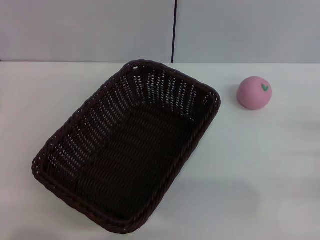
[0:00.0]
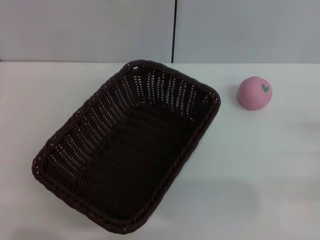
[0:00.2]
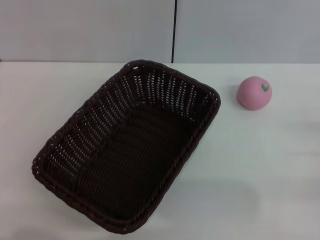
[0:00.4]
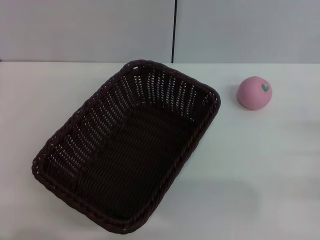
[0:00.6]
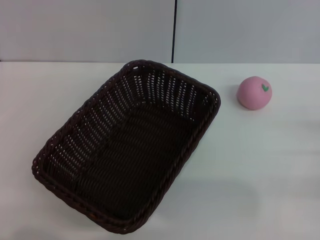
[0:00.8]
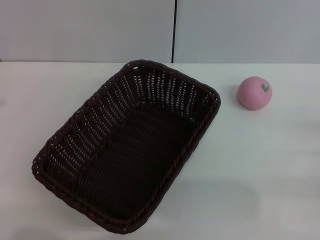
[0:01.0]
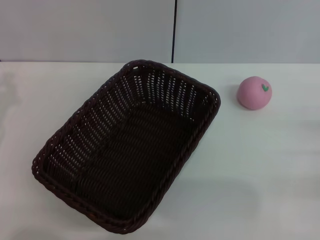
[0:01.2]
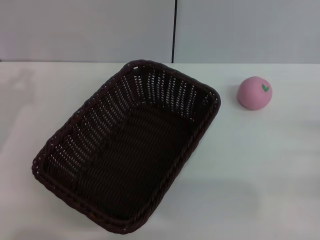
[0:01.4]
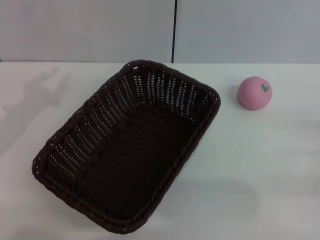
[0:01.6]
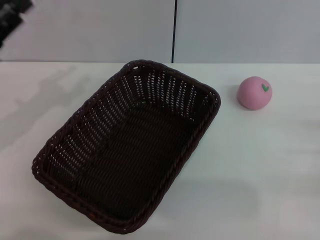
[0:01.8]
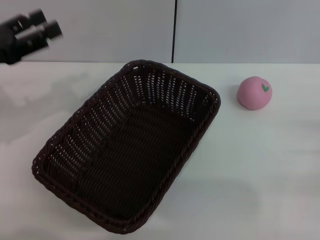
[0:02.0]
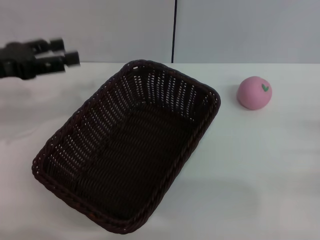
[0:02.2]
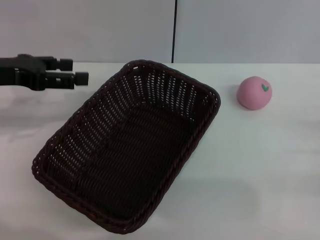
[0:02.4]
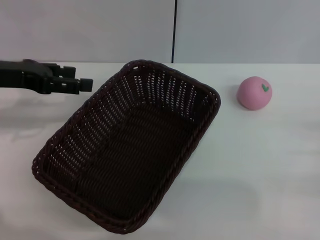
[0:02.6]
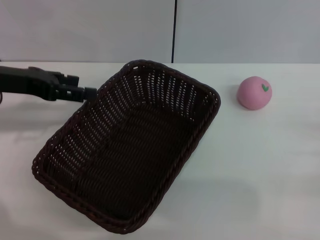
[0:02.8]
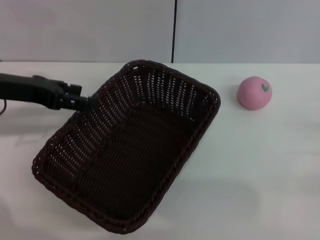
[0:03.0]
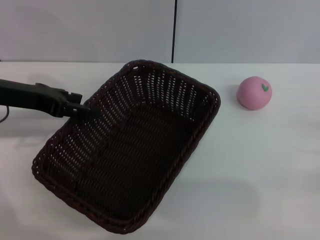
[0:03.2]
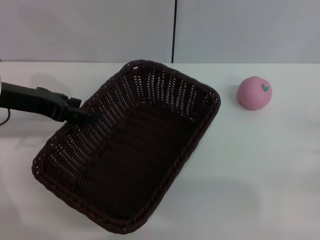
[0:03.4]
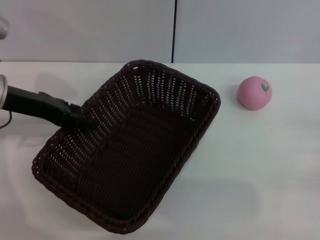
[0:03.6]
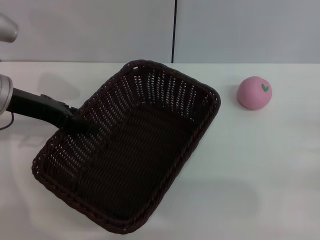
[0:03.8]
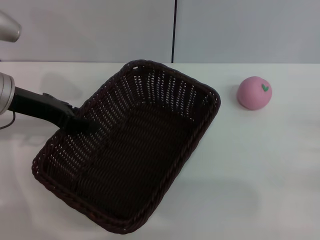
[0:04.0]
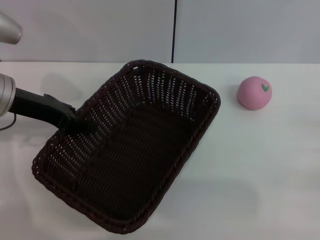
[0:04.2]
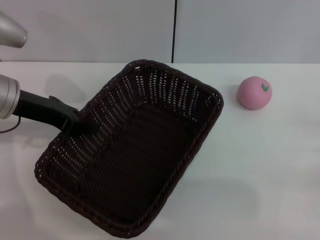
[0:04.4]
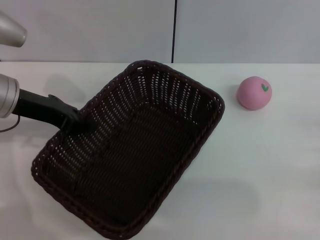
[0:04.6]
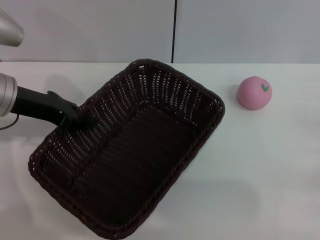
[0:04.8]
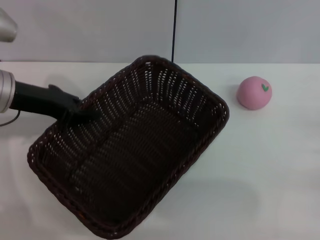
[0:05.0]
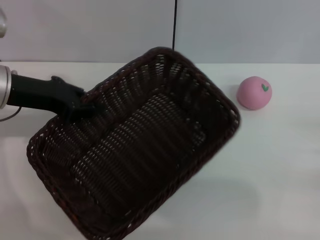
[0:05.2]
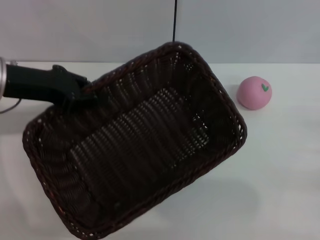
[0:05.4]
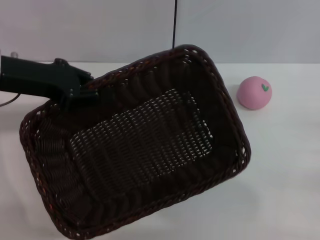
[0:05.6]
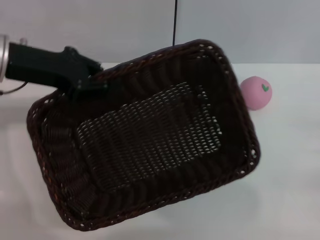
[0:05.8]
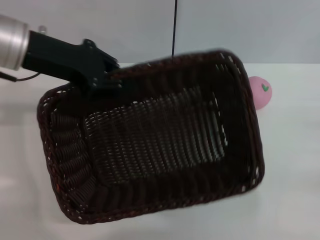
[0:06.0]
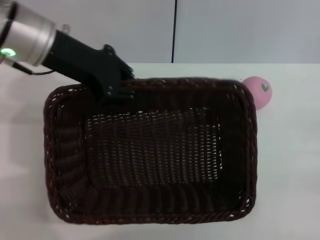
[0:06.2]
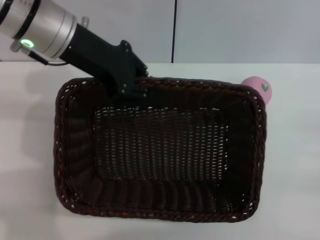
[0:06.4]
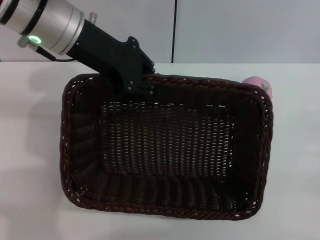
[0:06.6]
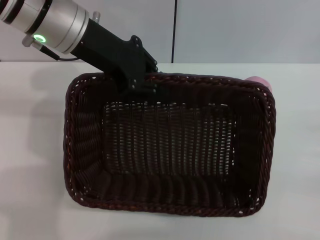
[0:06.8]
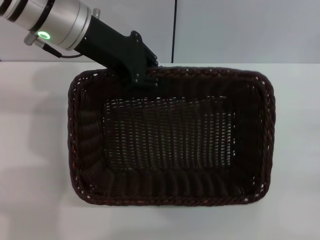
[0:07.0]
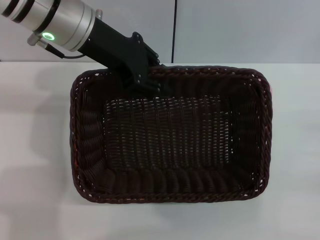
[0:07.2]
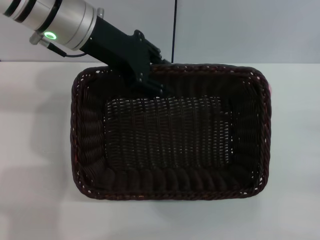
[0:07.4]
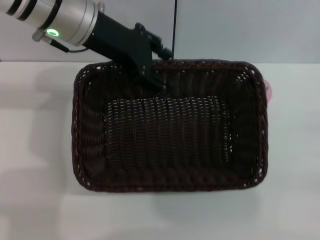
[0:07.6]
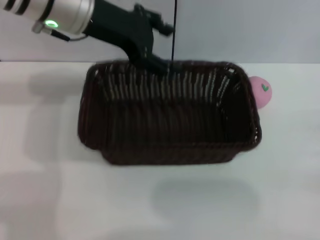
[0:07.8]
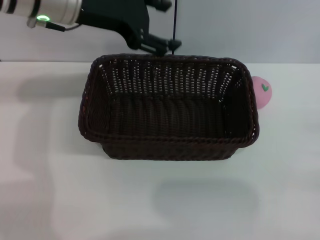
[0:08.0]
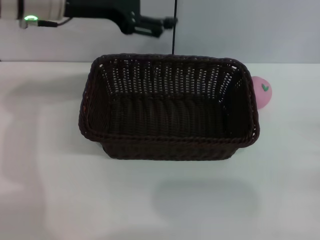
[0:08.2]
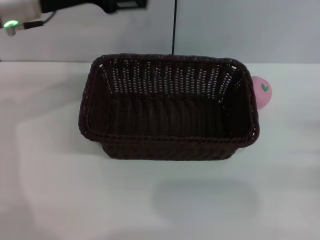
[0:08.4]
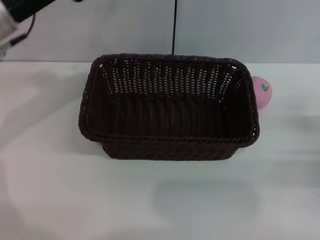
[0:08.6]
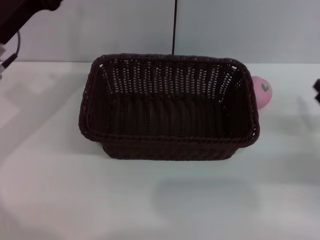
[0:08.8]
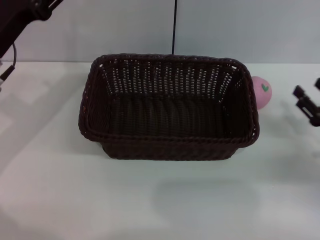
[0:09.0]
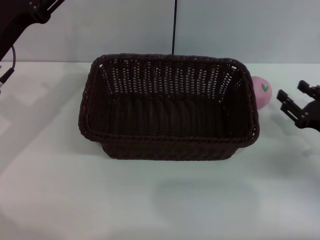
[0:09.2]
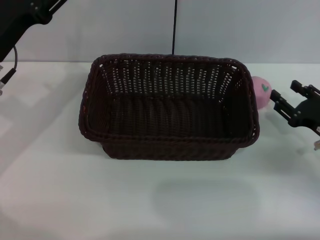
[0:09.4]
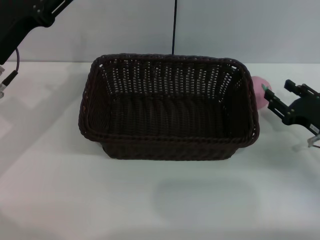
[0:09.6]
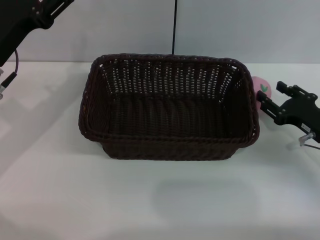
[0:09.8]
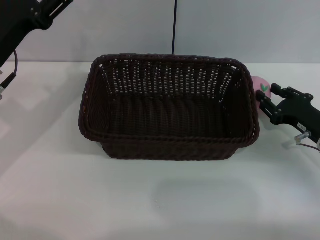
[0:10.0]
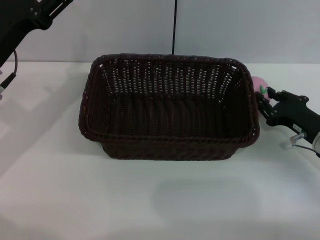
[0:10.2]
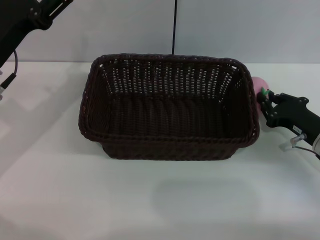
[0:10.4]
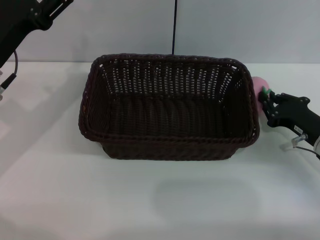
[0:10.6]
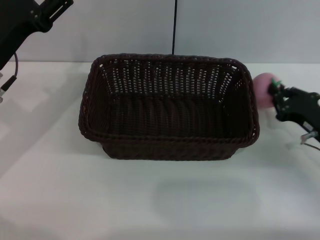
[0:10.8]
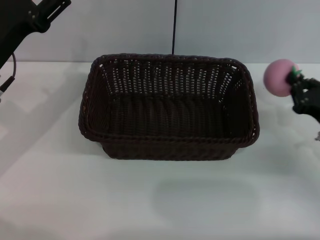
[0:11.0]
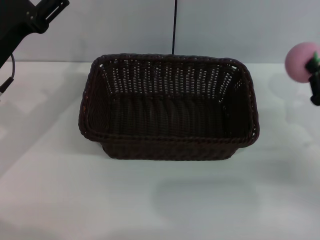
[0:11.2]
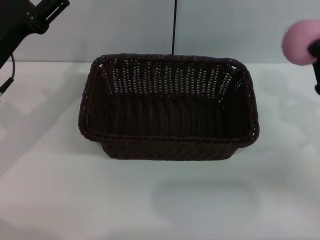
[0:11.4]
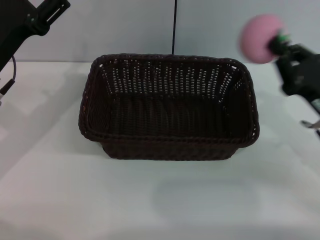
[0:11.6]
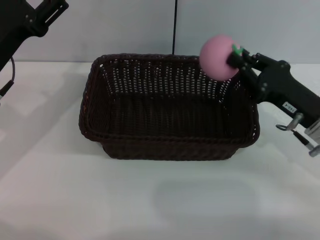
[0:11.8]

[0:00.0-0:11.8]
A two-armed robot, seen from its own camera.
Step, 0.0 to 5.4 s: Pick up the dark basket with the left gripper.
Step, 8.2 to 11.4 s: Pick up the peach with the left gripper.
1.4 to 3.0 s: The left gripper moves forward, upward and to the right, roughly 10 cm, and opens.
3.0 to 4.4 s: There are only small adjustments of the grippers.
4.4 to 6.0 s: The left gripper is displaced upward by roughly 5 cm, and closes.
6.0 to 7.4 s: The left gripper heads to the right, covering about 10 cm.
7.4 to 8.8 s: The left gripper shifts about 15 cm to the left and downward, and opens up.
8.8 to 10.4 s: The right gripper shifts about 5 cm to the left, and closes up.
10.4 to 11.8 s: The right gripper shifts approximately 5 cm upward.

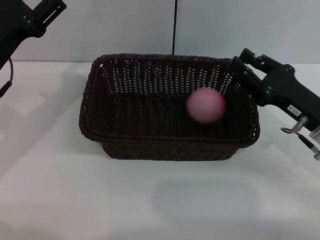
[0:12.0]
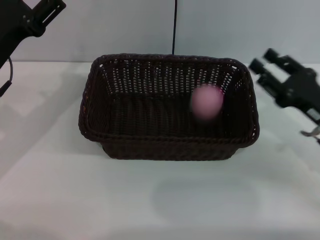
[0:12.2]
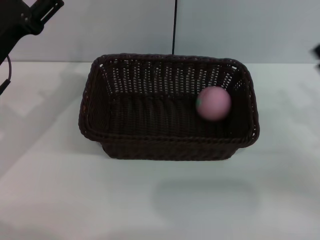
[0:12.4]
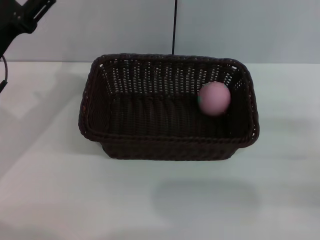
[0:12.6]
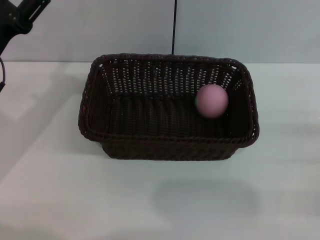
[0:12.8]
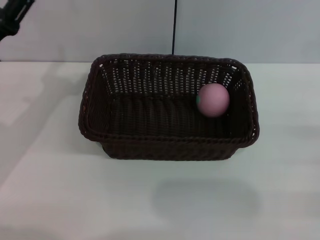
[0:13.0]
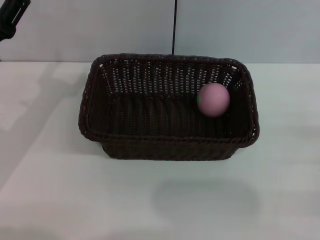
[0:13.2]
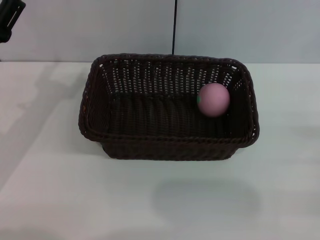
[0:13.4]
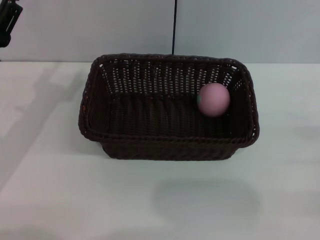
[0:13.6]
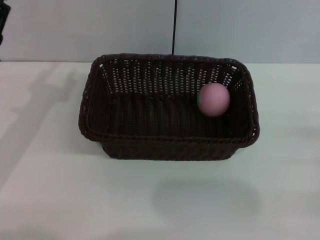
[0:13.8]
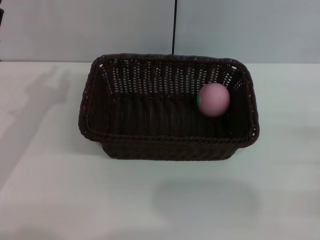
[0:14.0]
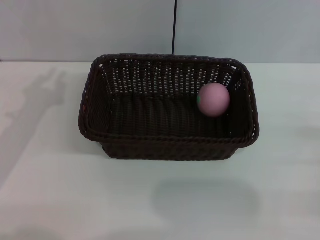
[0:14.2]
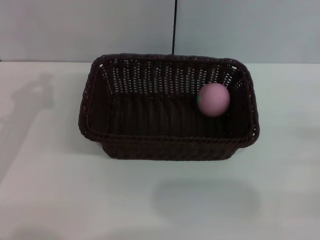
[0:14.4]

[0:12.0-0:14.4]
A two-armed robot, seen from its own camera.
12.0 to 13.2 s: The right gripper travels to the right and backward by about 15 cm, and opens.
13.2 to 14.4 s: The left gripper closes.

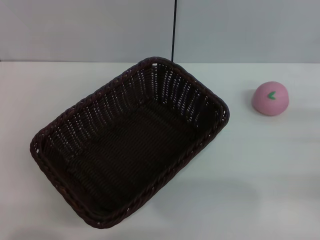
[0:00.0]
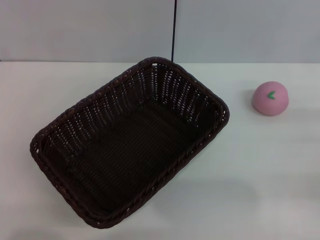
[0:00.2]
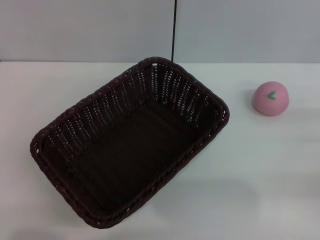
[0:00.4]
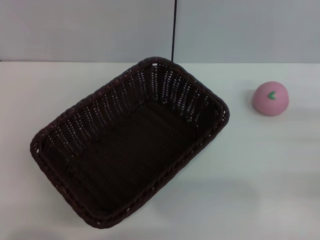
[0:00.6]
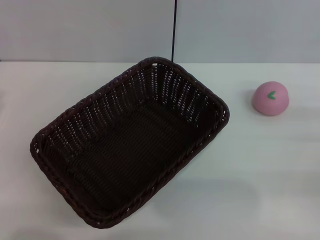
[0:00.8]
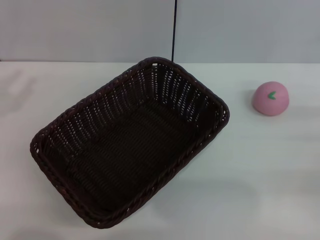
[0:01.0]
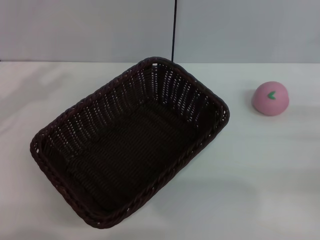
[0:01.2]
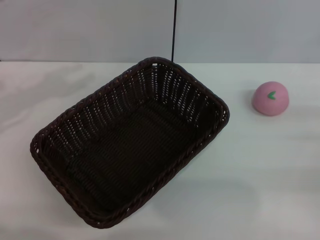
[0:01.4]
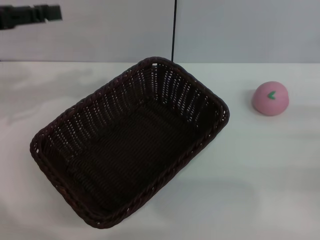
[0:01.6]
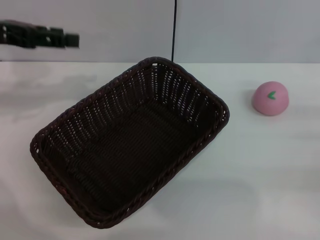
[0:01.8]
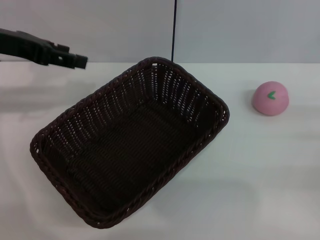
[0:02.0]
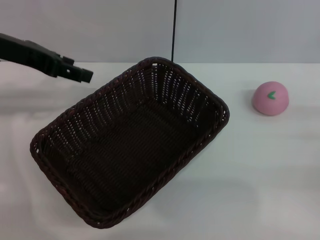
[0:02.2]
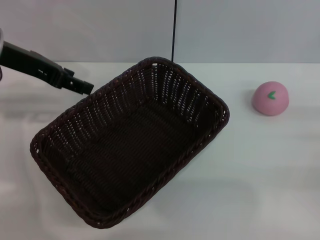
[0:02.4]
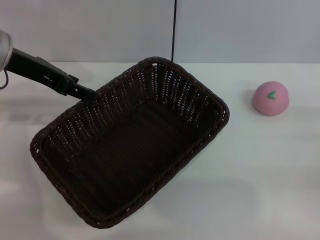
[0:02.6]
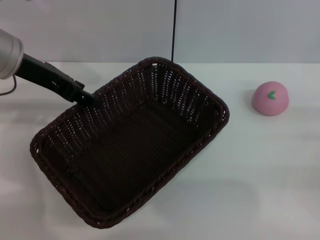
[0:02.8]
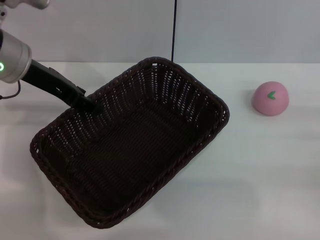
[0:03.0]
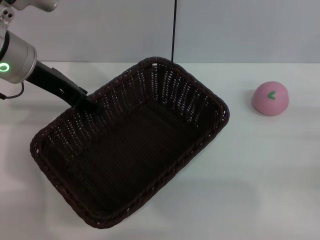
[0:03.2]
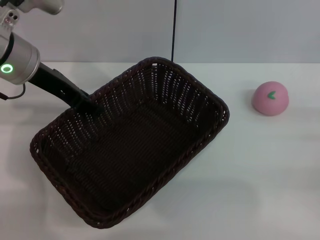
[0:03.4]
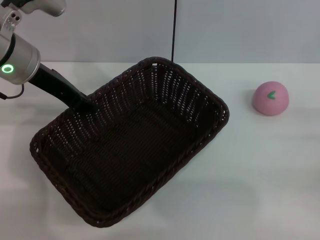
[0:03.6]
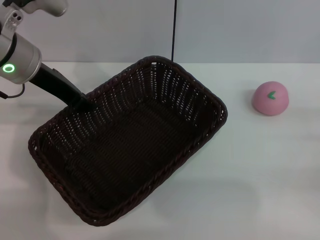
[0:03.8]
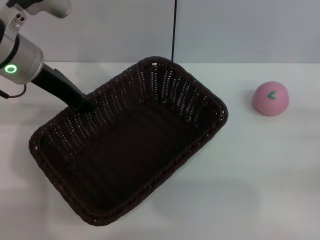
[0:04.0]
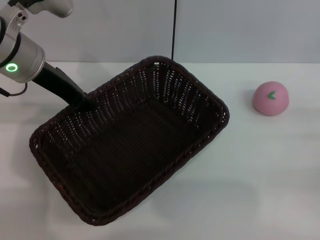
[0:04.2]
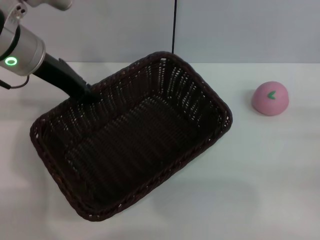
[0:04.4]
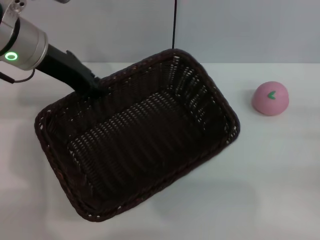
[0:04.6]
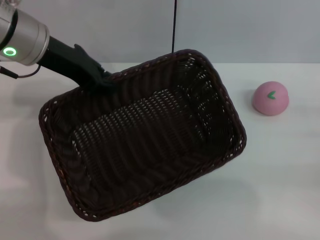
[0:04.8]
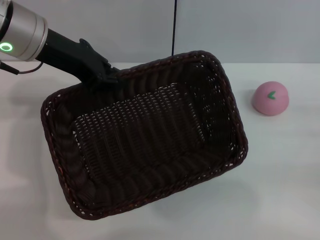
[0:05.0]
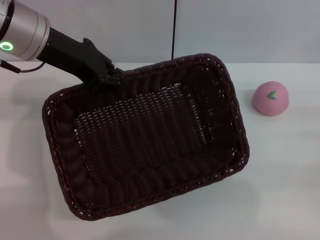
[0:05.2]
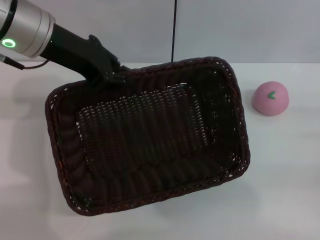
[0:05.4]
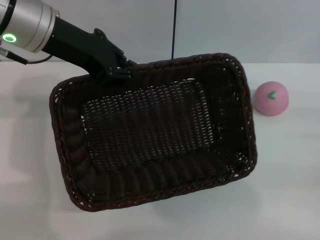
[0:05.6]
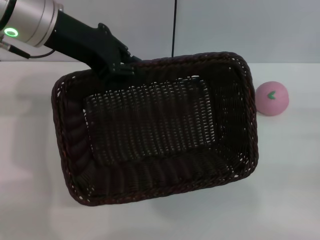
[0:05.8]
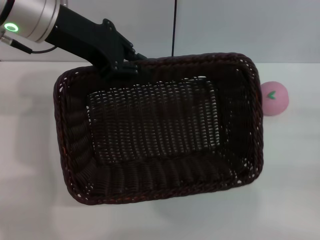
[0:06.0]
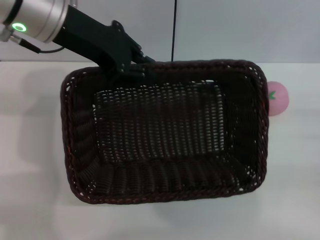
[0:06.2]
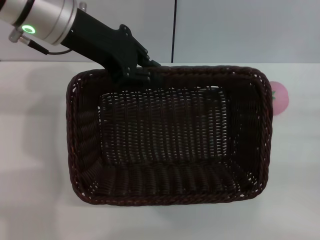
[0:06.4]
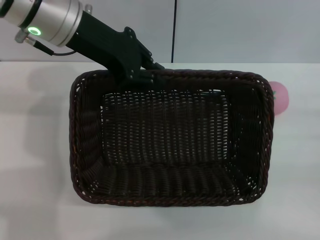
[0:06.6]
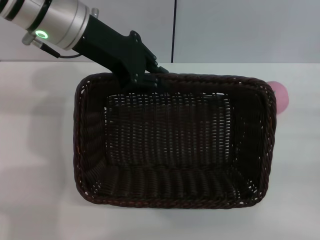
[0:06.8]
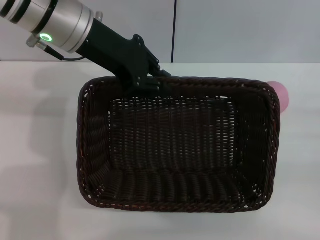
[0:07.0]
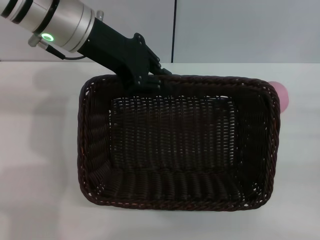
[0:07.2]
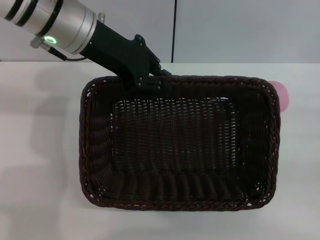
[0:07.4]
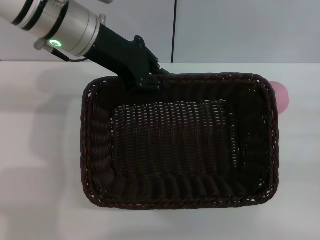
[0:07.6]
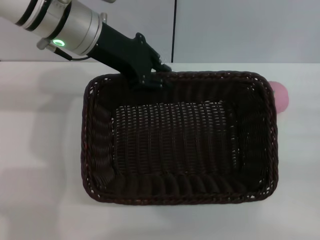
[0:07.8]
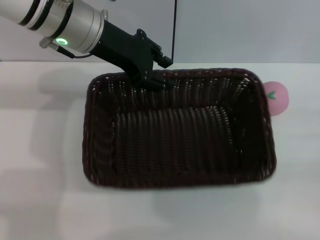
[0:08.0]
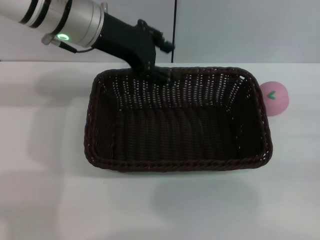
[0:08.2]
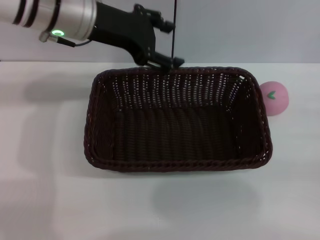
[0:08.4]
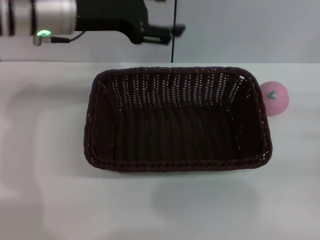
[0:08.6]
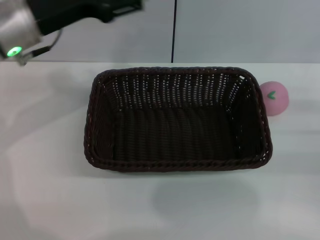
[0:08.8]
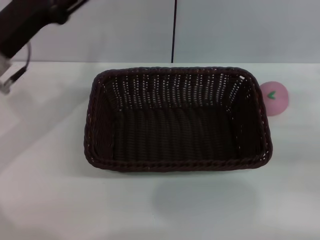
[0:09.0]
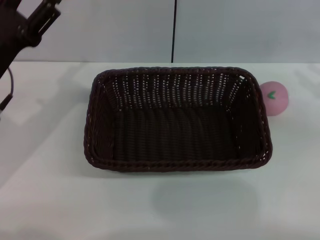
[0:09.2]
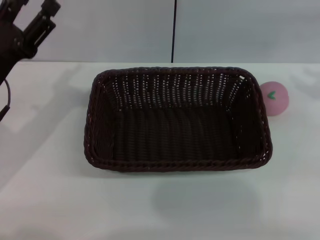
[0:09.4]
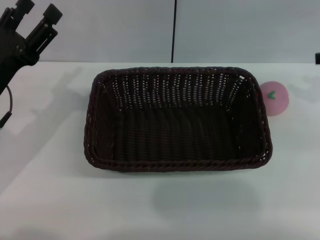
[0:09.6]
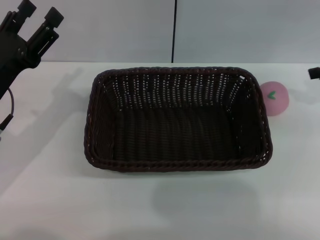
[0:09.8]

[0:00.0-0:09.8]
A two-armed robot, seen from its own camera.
Step, 0.0 to 5.2 s: Pick up the dark basket with the left gripper.
Step, 5.6 to 8.2 s: Place the dark basket in the center of view with the right gripper.
1.4 to 2.8 s: The left gripper moves to the right, approximately 10 cm.
2.8 to 4.2 s: The left gripper closes.
4.2 to 5.6 s: The left gripper moves approximately 5 cm.
7.0 to 8.4 s: The left gripper opens.
8.4 to 9.8 s: The left gripper goes roughly 20 cm downward, to the left and backward. Meanwhile the right gripper shifts about 20 cm upward and forward.
